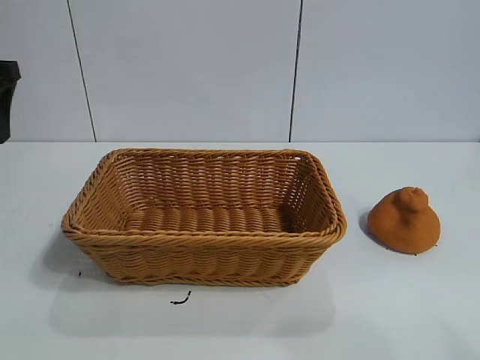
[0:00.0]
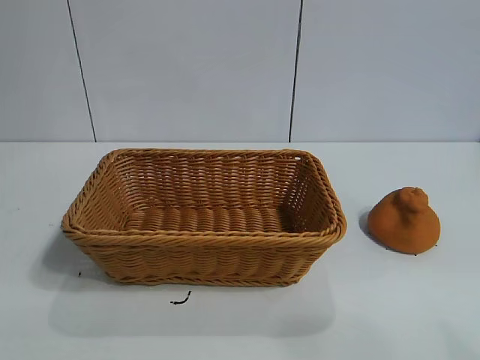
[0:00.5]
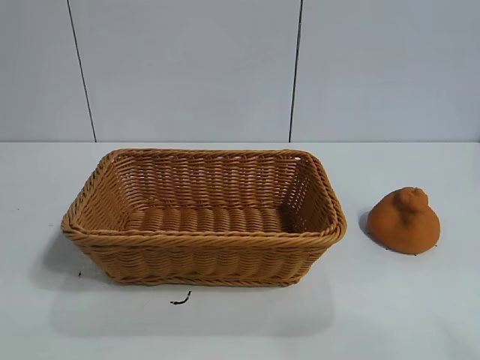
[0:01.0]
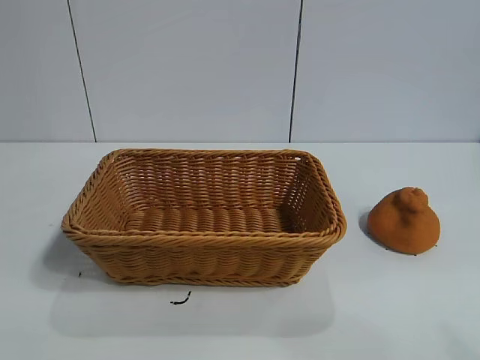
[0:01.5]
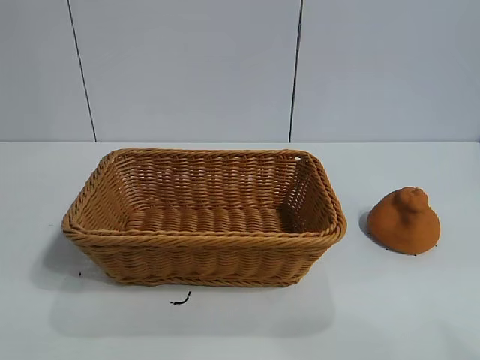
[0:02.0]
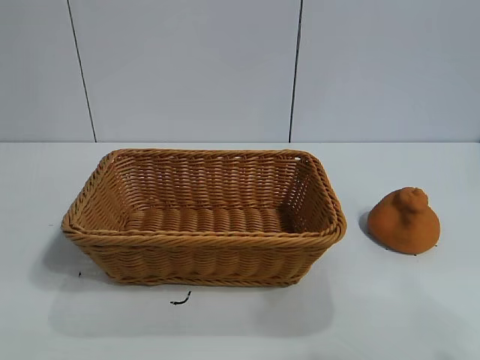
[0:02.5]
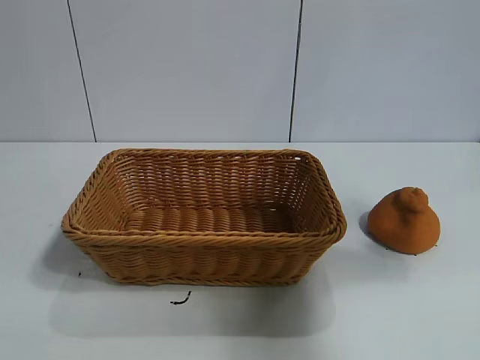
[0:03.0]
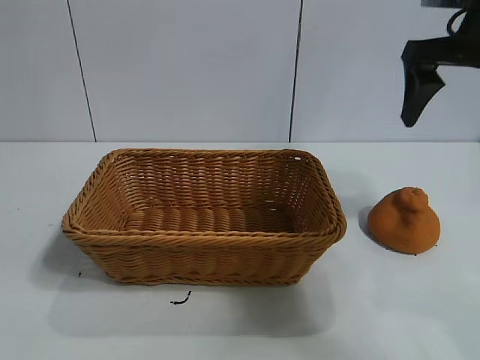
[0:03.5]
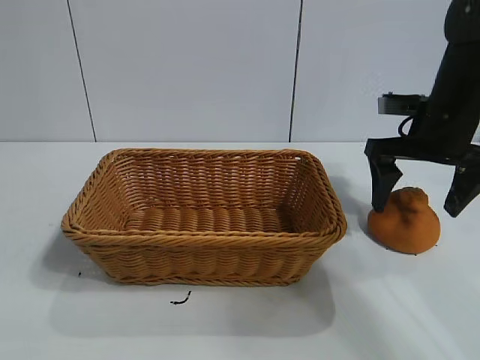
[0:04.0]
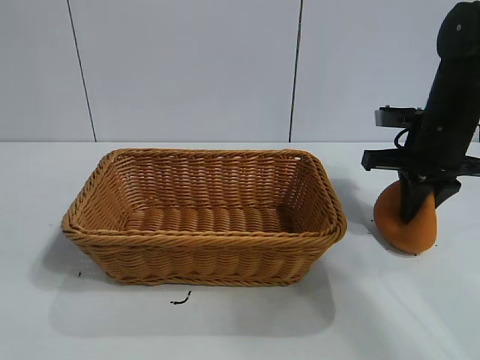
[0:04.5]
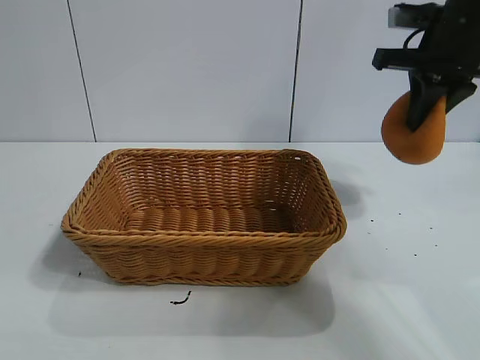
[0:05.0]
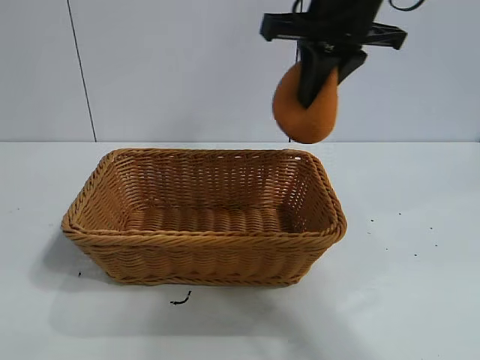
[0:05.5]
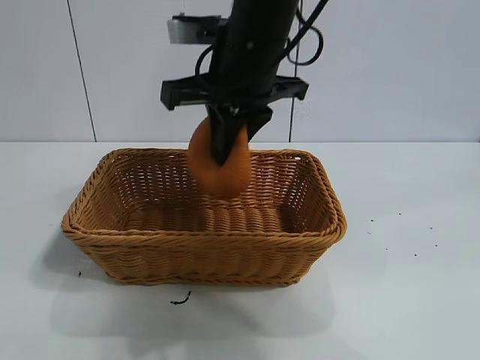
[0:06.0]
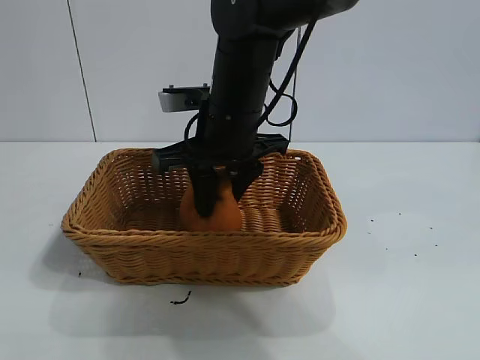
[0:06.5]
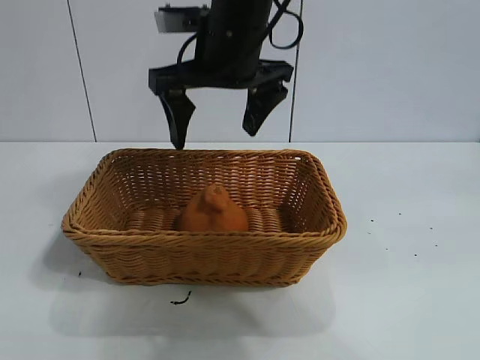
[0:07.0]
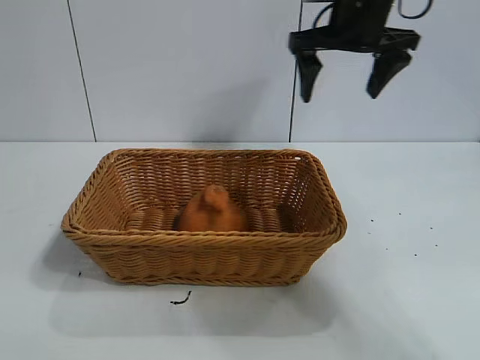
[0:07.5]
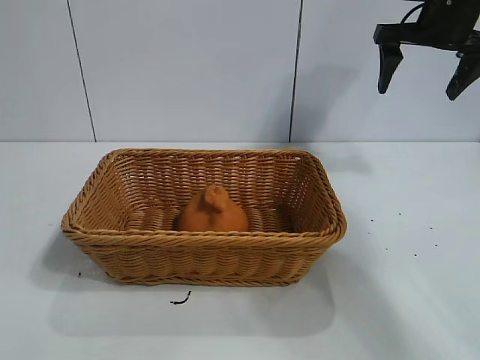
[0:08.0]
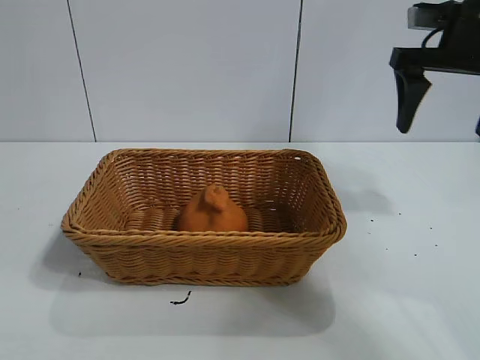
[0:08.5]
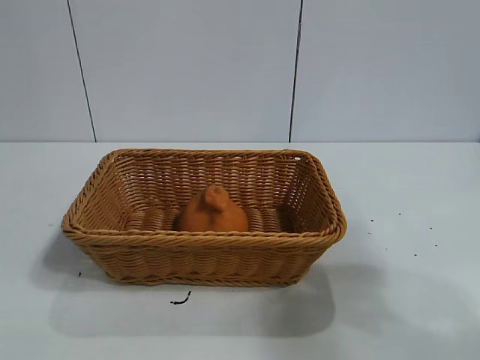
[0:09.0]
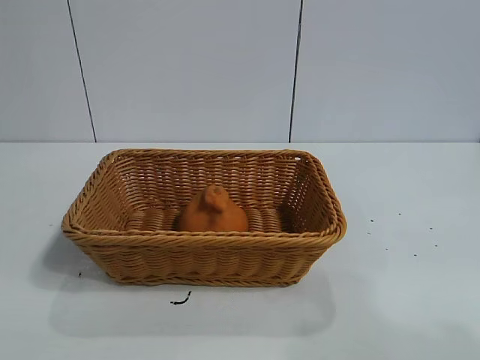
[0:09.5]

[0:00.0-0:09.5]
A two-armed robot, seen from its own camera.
Task of the whole recording: pick up the orange and put it into the basket.
Step, 0:00.0 to 0:04.5: Grasp the orange with right gripper.
Step, 0:05.0 to 0:06.5: Place the orange in the basket with right gripper.
